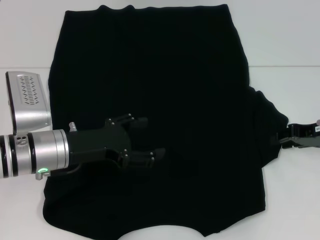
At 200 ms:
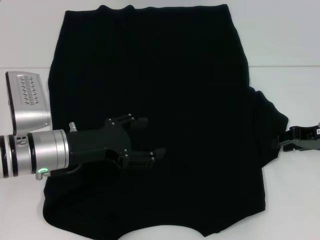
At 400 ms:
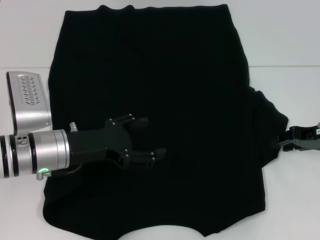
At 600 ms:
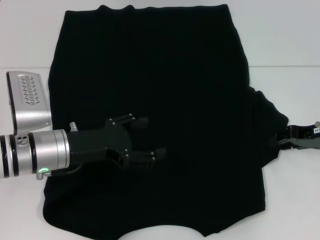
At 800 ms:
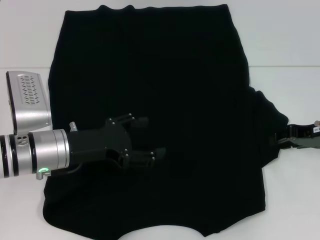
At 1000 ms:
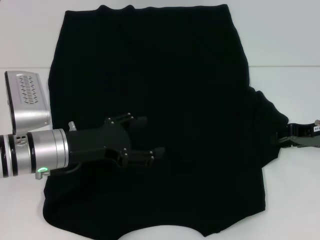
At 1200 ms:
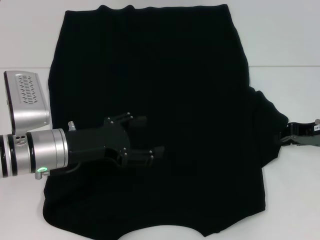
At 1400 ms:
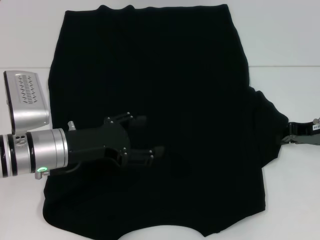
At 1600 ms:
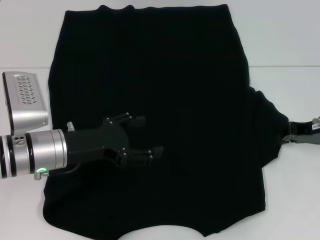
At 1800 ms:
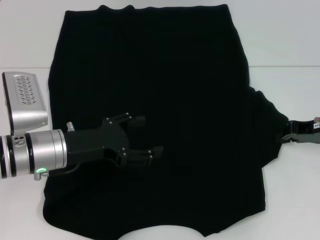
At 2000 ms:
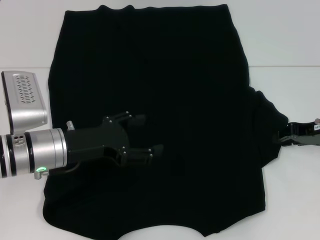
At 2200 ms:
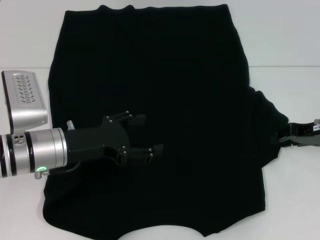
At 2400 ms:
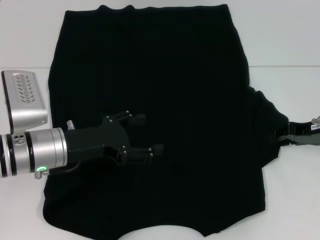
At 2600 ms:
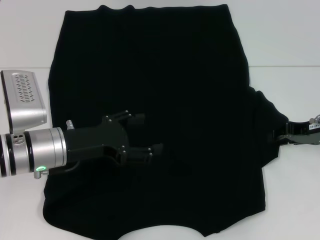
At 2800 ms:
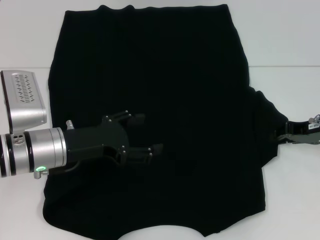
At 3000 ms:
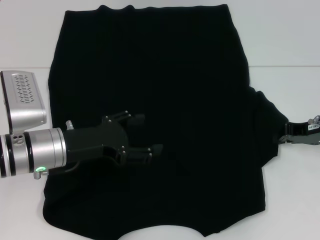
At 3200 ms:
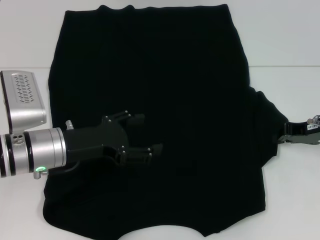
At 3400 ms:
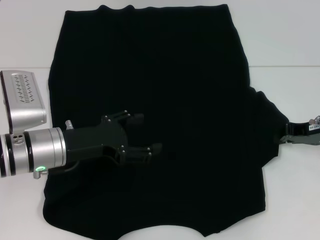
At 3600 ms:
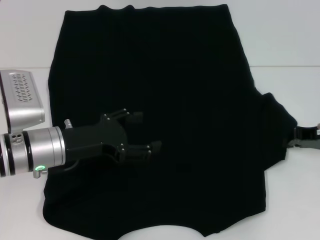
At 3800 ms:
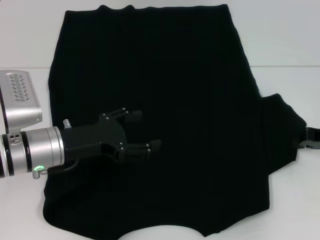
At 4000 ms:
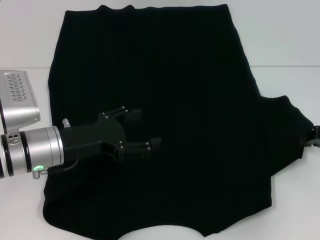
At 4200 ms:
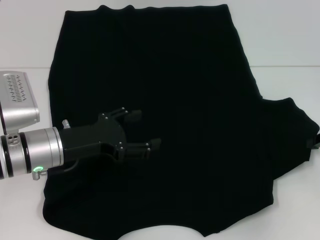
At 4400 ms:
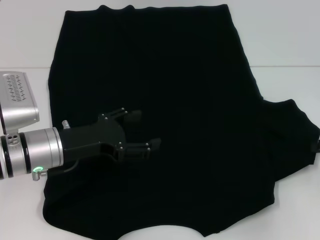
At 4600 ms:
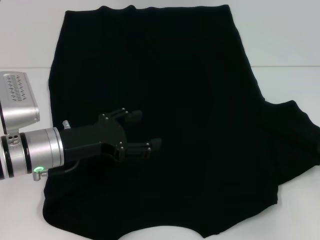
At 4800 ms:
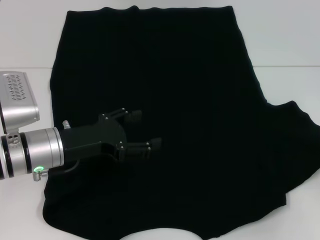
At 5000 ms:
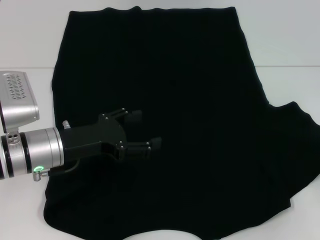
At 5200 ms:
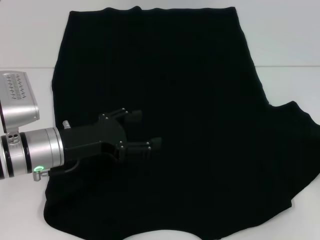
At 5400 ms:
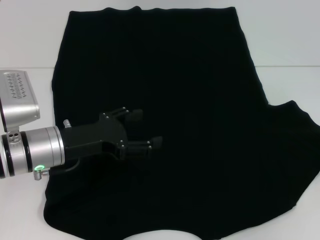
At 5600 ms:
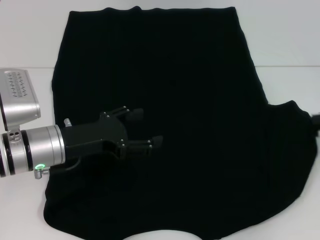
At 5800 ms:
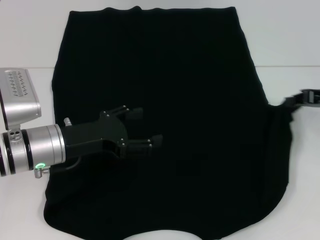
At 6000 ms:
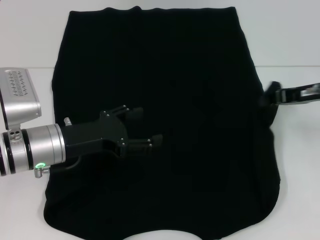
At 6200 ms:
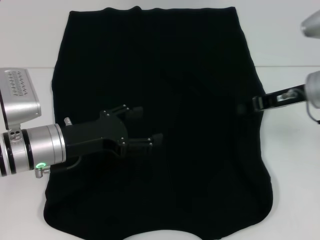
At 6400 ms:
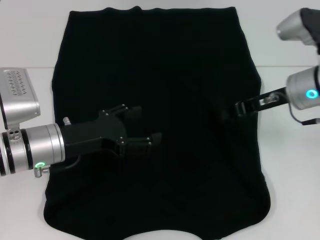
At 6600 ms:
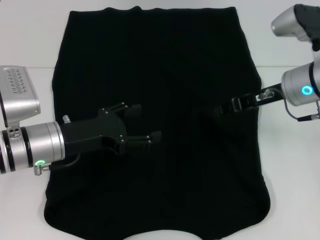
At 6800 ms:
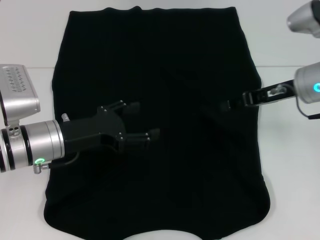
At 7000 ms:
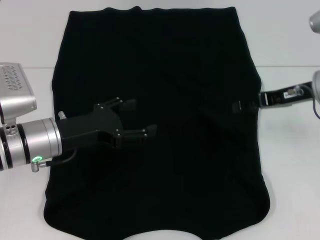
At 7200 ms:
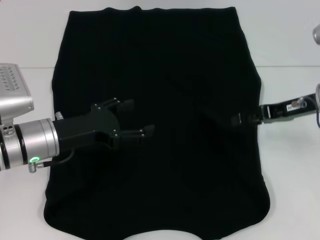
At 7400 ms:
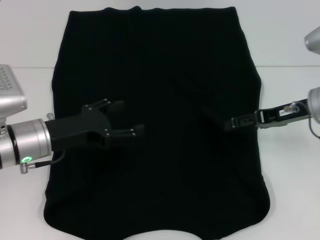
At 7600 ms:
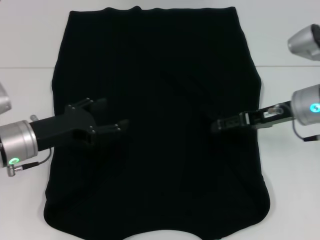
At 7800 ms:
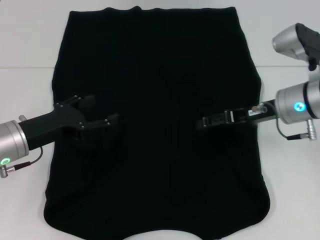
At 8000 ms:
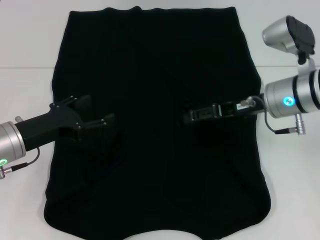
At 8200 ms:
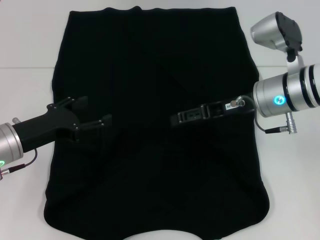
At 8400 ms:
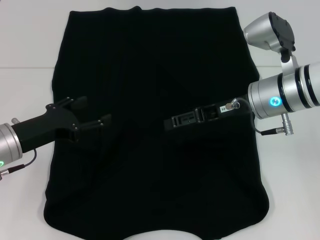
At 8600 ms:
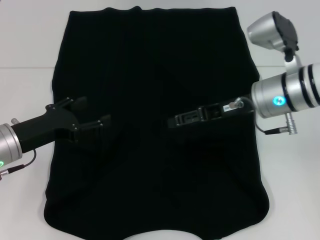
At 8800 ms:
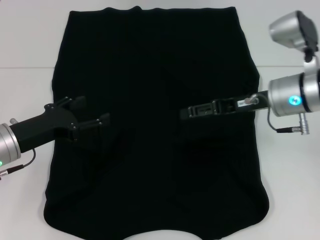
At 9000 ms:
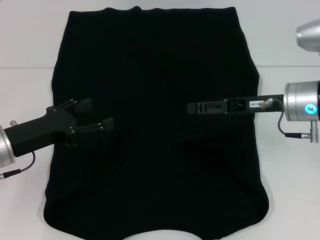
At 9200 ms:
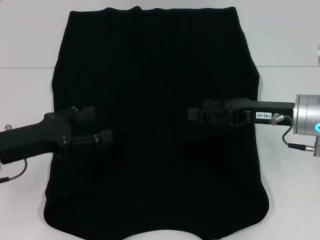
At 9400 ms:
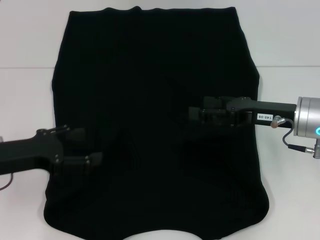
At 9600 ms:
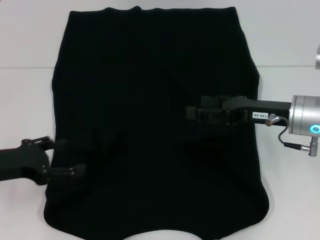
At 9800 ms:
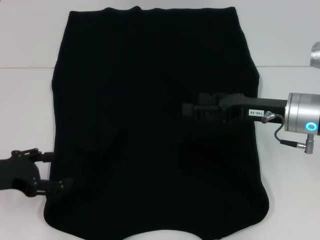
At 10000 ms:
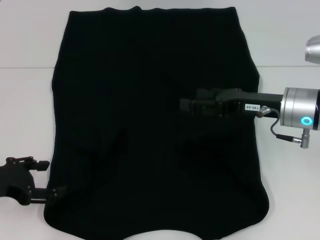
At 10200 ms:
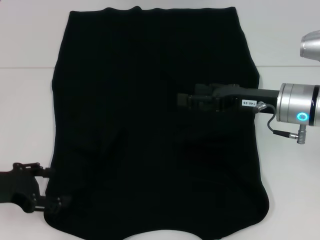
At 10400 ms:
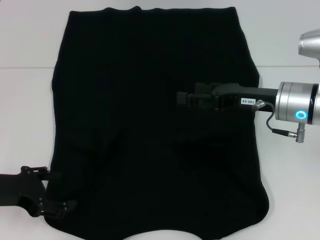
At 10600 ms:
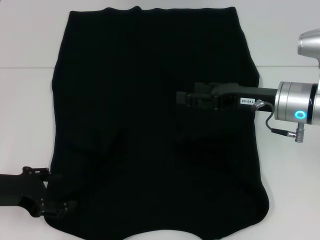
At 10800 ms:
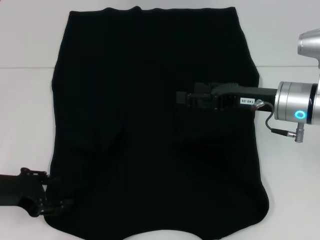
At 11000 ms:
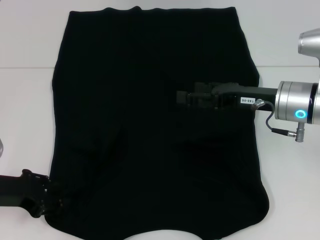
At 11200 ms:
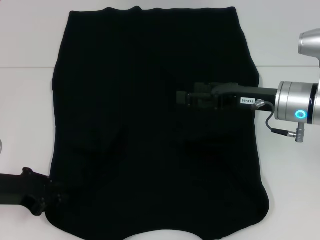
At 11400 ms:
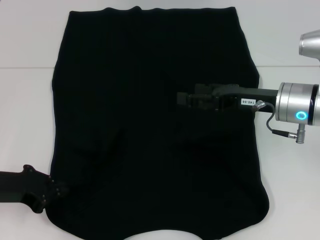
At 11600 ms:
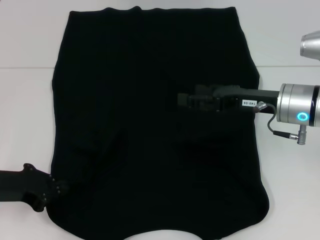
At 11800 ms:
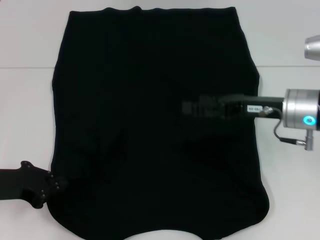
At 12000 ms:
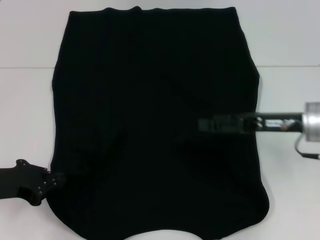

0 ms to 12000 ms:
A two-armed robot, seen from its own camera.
Step, 0 ms to 6400 ms: Fold the bottom right sleeve with your right hand.
0 ms to 3000 ms: Both grippers stay about where they are.
3000 ms to 4400 ms: The right gripper travels to the right by approximately 5 cm.
4400 ms to 6000 ms: The right gripper travels to the left, forward and upward by about 10 cm.
6000 ms to 7600 ms: The right gripper moves approximately 5 cm, and opens its fingers.
10400 ms to 12000 ms: The left gripper closes.

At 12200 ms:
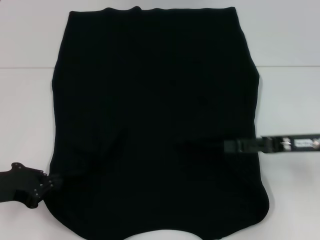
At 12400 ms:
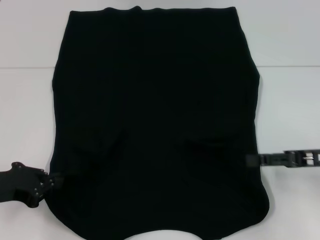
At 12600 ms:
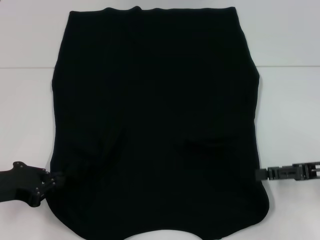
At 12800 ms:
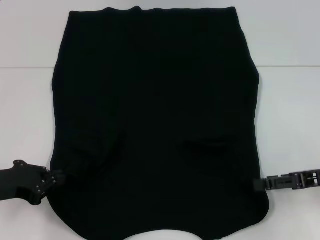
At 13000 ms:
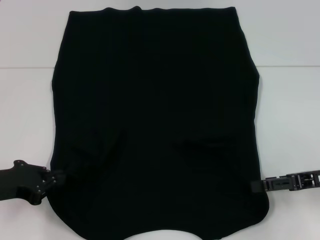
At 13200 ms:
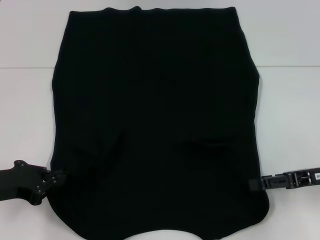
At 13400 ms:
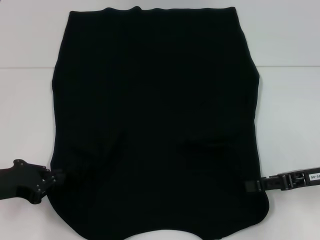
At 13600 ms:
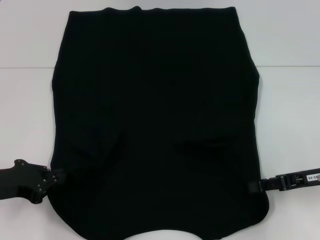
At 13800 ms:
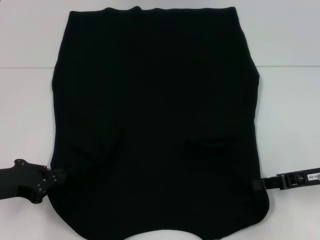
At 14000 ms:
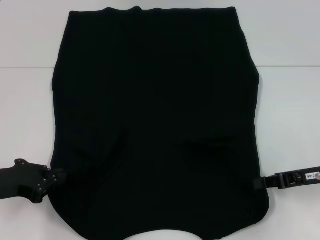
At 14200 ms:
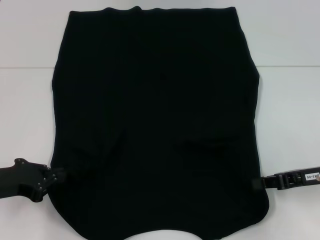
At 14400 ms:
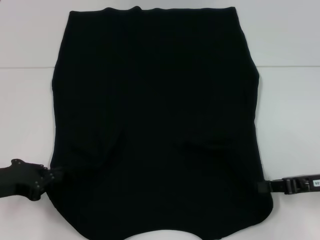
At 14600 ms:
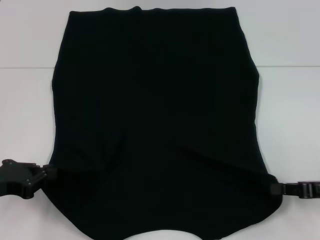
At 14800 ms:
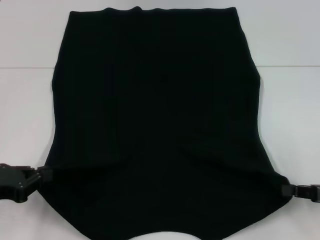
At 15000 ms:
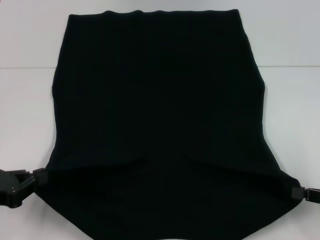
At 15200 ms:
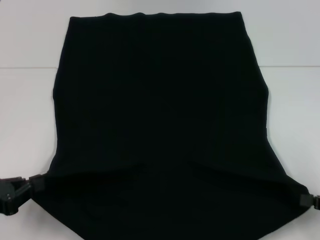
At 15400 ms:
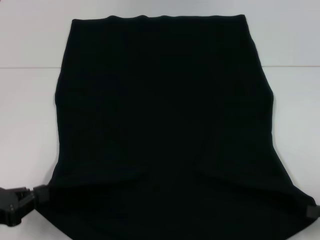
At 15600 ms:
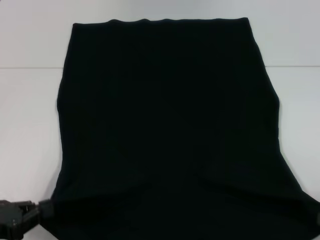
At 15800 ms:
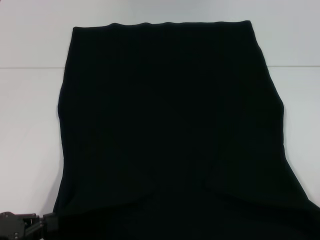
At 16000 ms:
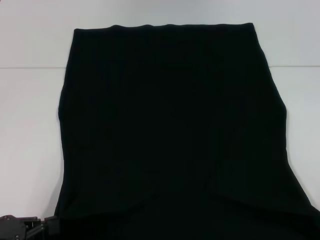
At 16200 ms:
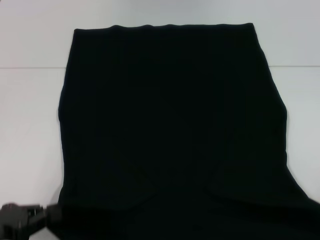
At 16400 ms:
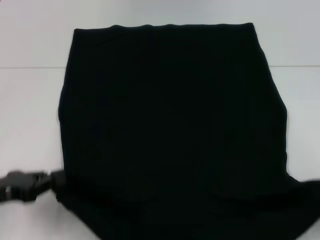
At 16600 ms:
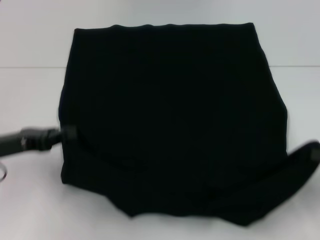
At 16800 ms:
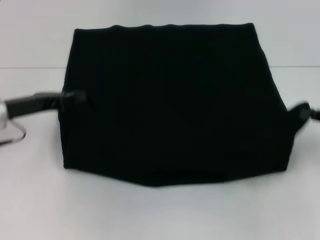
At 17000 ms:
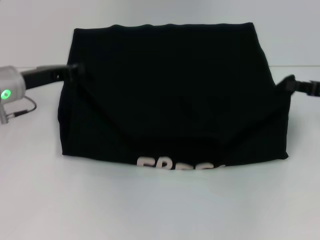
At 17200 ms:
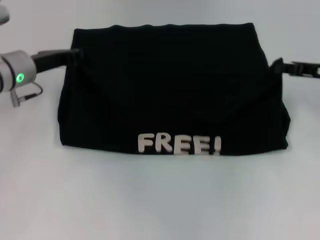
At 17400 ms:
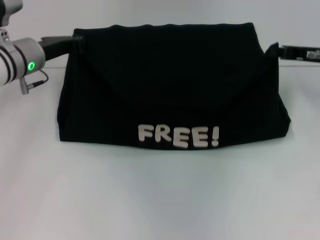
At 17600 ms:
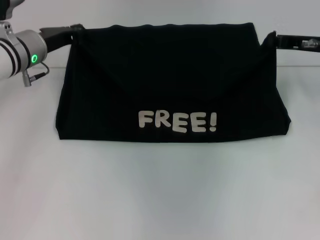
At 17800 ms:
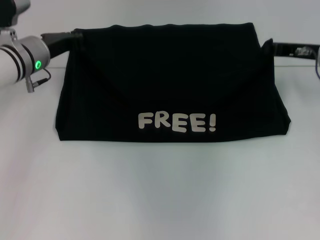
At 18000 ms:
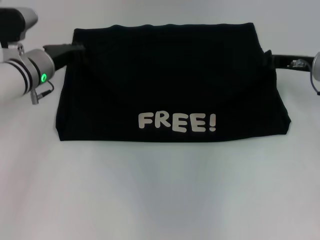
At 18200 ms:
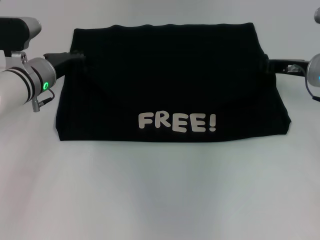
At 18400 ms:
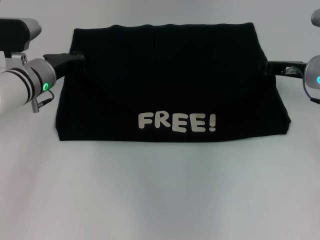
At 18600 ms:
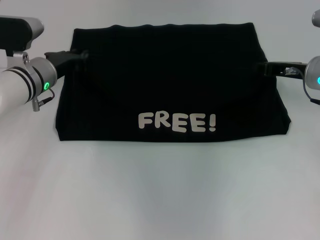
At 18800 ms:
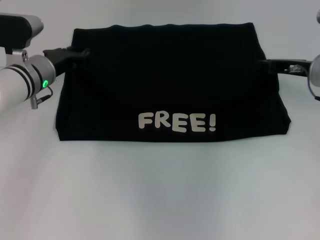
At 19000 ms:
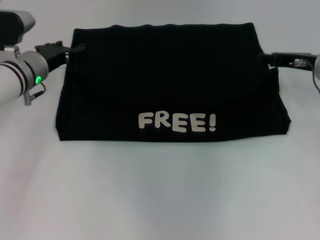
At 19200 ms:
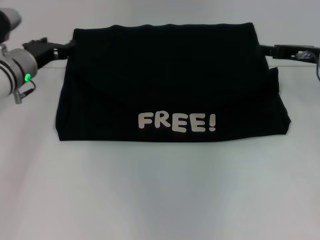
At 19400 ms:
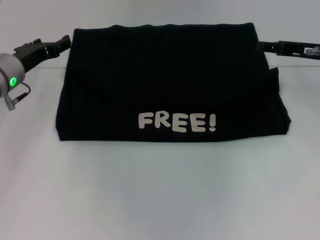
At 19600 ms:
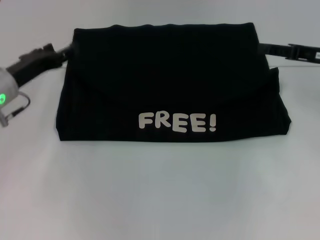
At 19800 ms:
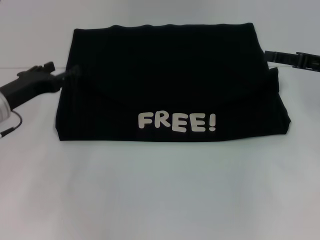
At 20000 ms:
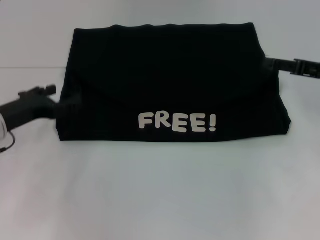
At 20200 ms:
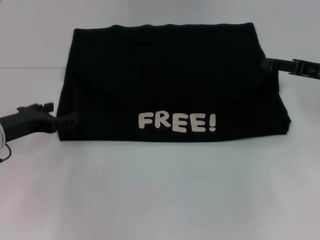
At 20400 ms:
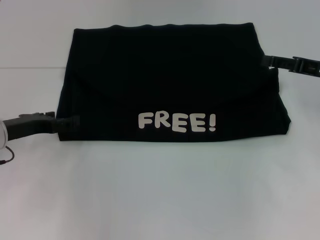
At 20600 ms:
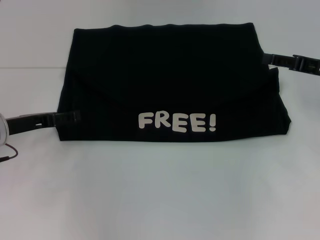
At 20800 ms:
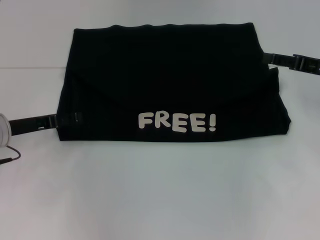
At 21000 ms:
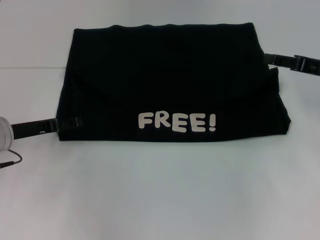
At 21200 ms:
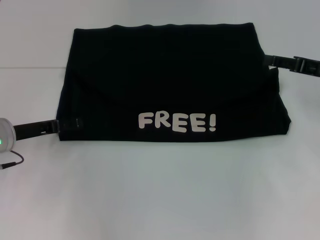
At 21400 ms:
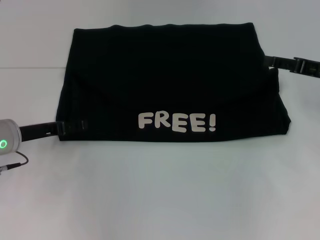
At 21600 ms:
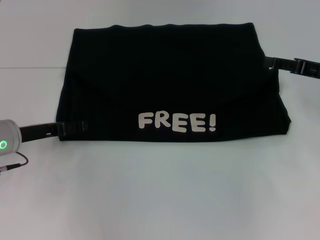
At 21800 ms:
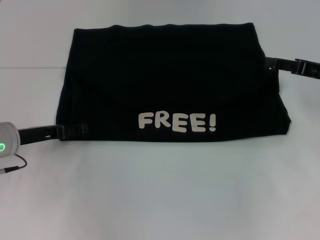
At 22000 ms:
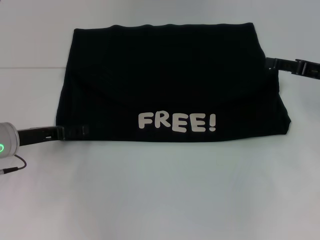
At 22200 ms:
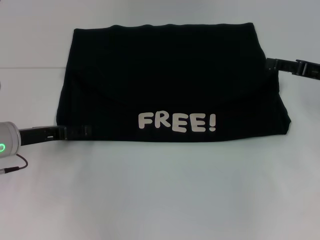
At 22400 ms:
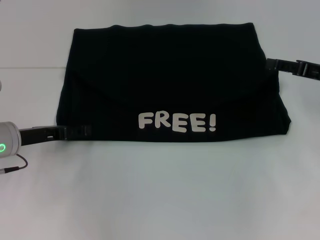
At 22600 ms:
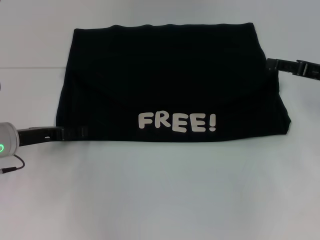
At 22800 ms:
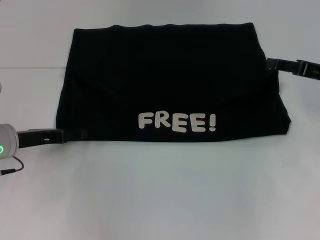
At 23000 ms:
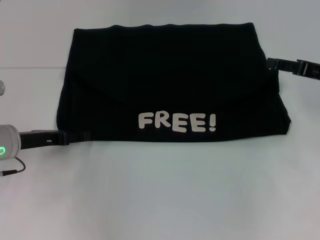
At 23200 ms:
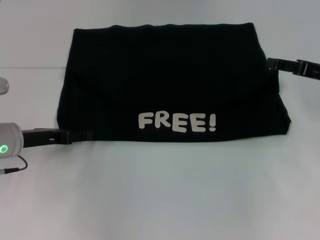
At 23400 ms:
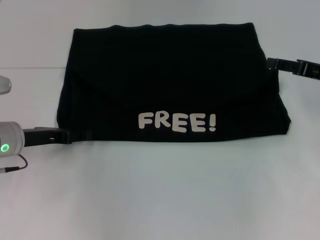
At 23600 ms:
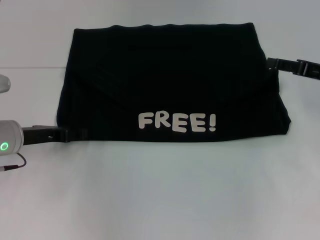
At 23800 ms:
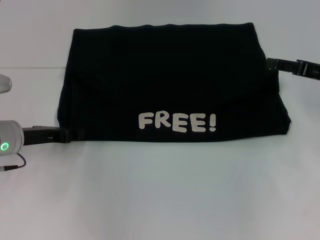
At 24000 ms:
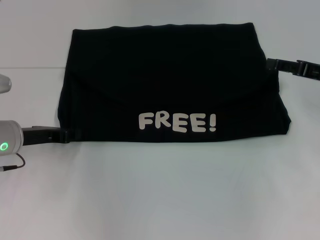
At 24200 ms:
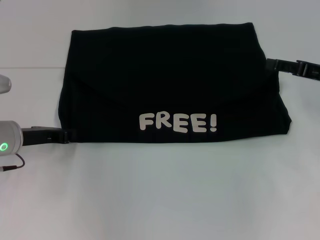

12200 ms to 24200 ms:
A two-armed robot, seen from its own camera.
Step, 12400 ms to 14200 ms: Grab the bottom right corner with your right hand.
Step, 14400 ms to 18800 ms: Fold the clothes with your left hand.
Step, 14400 ms to 18800 ms: Fold the clothes with your right hand.
12200 ms to 13800 ms: The right gripper closes its fingers.
13800 ms to 15200 ms: The right gripper shifts approximately 10 cm backward and to the right, and closes. The left gripper goes roughly 5 cm backward.
15200 ms to 16600 ms: The right gripper reaches some 5 cm backward, then returns. The left gripper heads forward, covering about 10 cm.
16600 ms to 18200 ms: The right gripper heads forward and to the left, covering roughly 20 cm. The left gripper moves forward and to the right, approximately 20 cm.
18200 ms to 19800 ms: The left gripper heads backward and to the left, covering roughly 10 cm, and opens up; the right gripper moves to the right, roughly 5 cm, and opens.
21200 ms to 22600 ms: The grippers make only small movements.
22600 ms to 24200 ms: The left gripper closes up.
